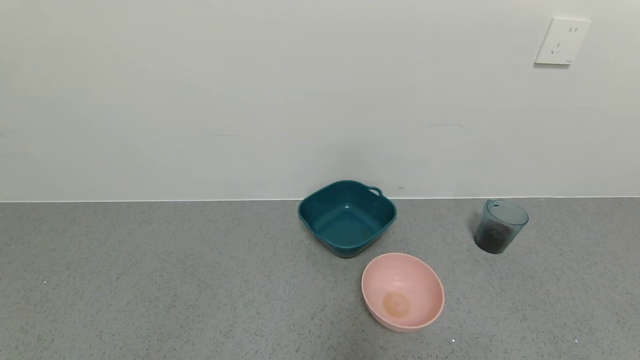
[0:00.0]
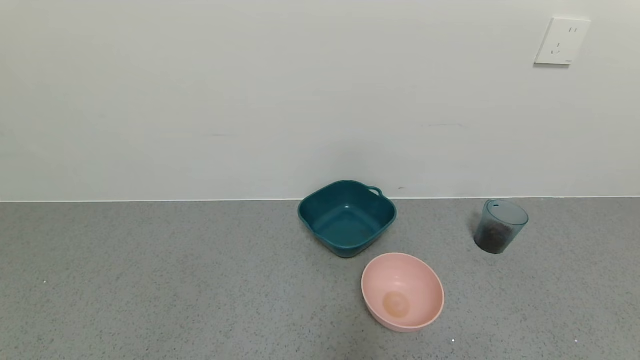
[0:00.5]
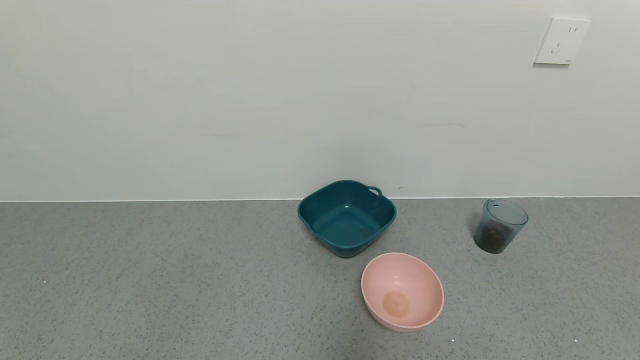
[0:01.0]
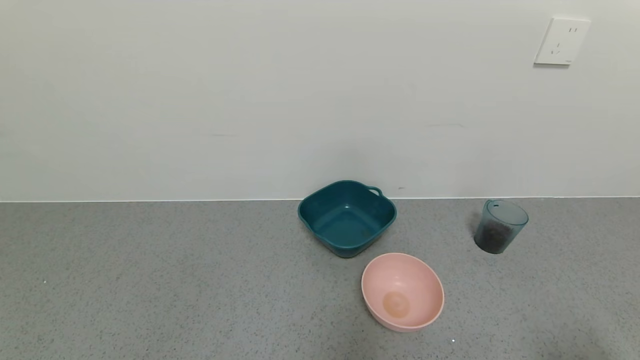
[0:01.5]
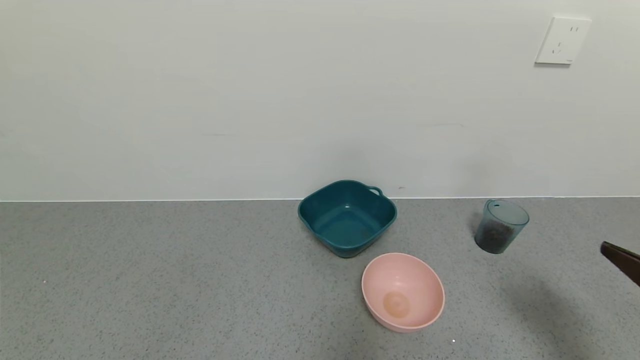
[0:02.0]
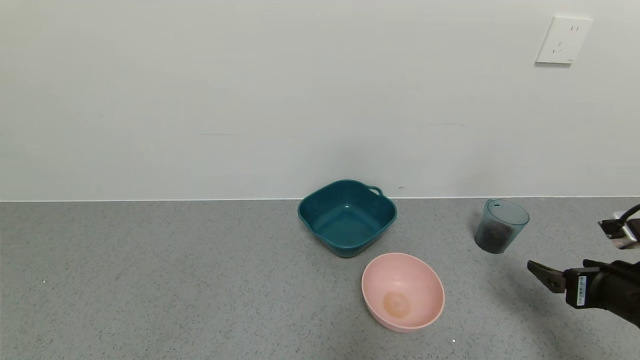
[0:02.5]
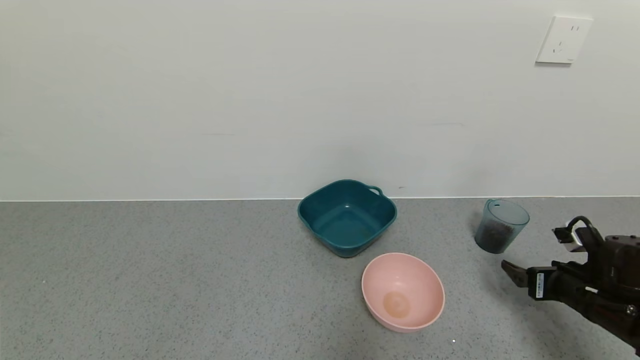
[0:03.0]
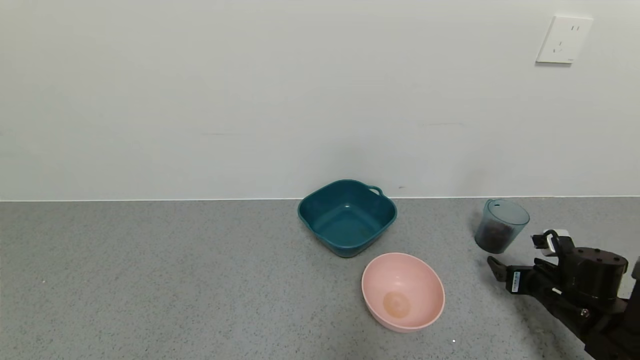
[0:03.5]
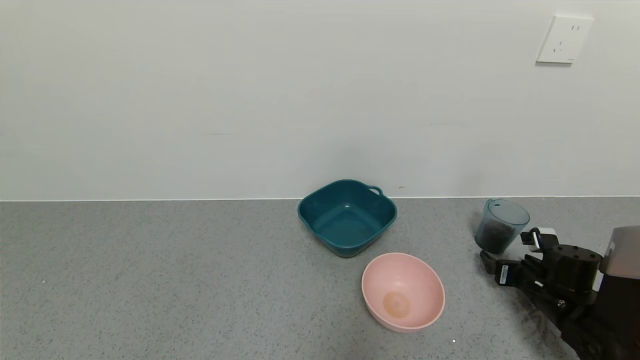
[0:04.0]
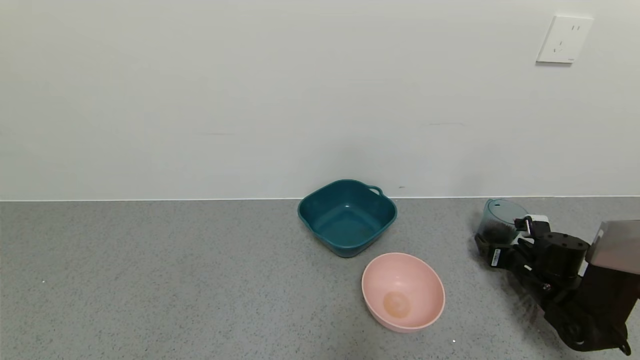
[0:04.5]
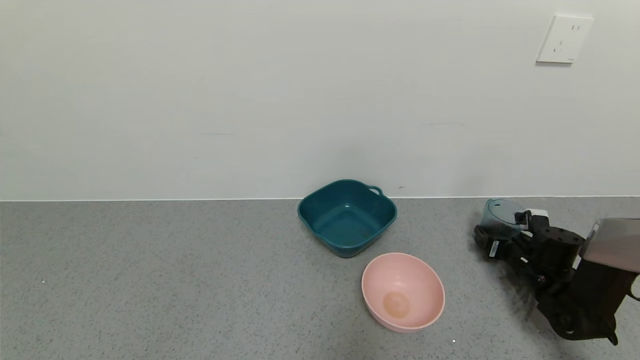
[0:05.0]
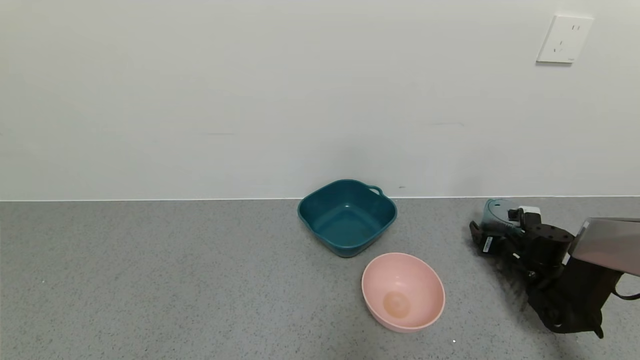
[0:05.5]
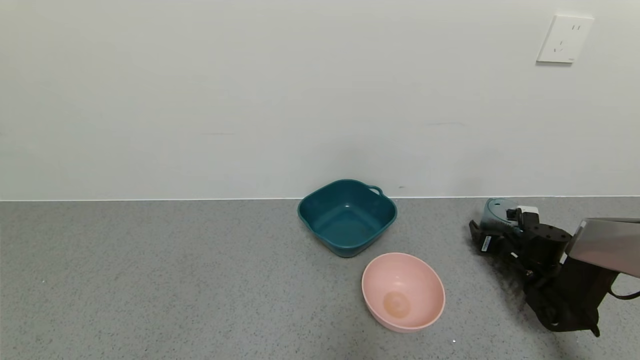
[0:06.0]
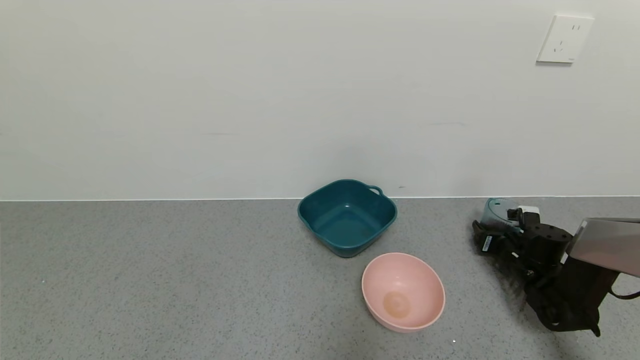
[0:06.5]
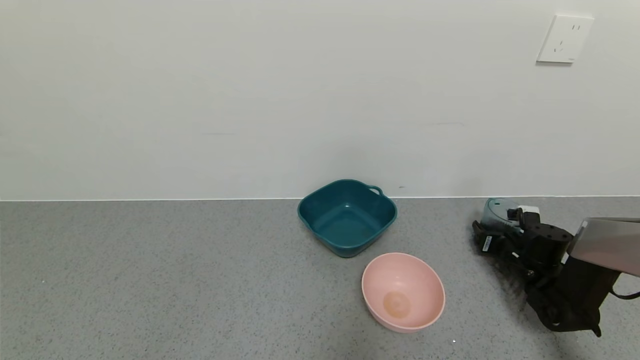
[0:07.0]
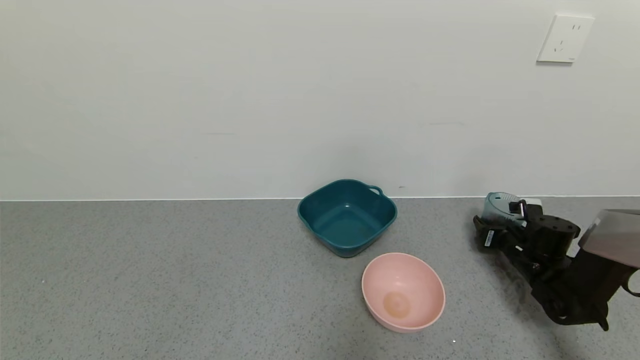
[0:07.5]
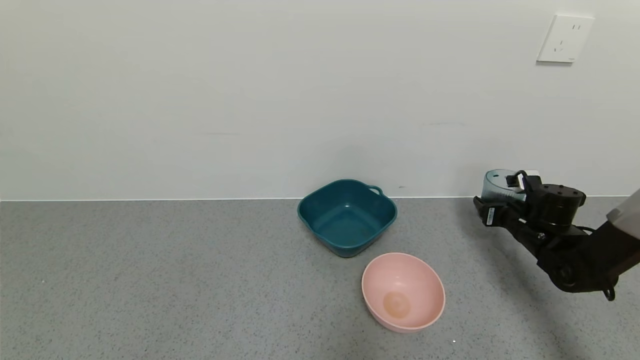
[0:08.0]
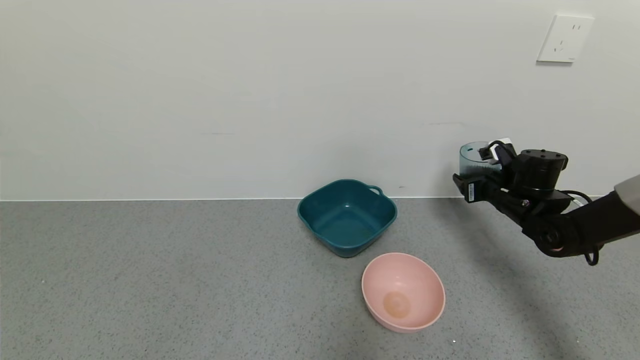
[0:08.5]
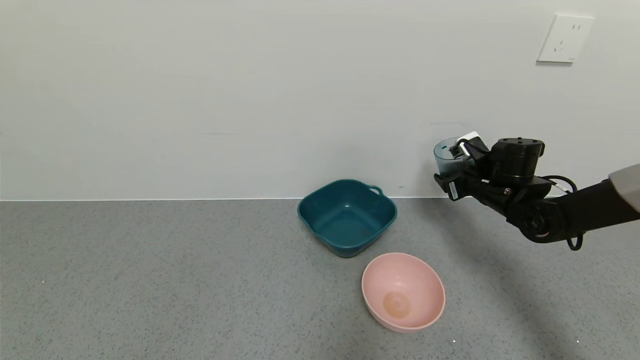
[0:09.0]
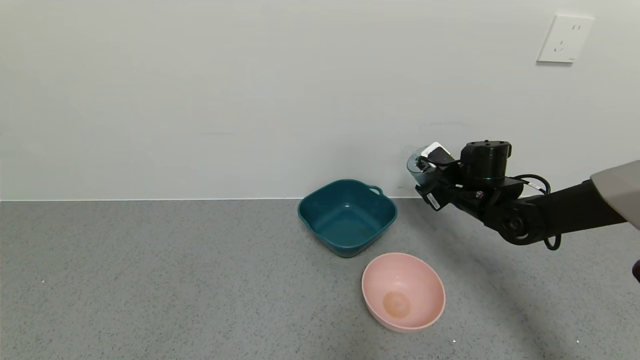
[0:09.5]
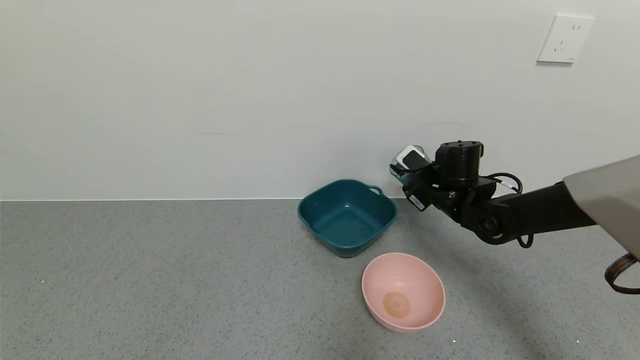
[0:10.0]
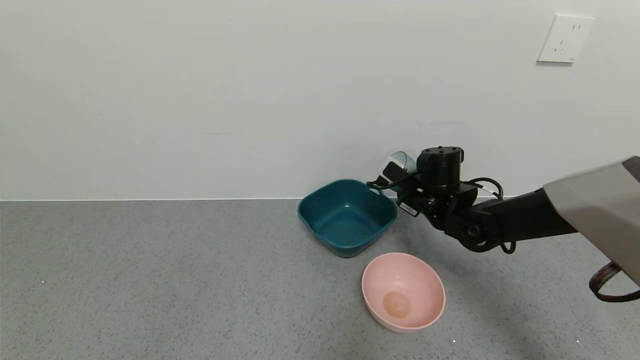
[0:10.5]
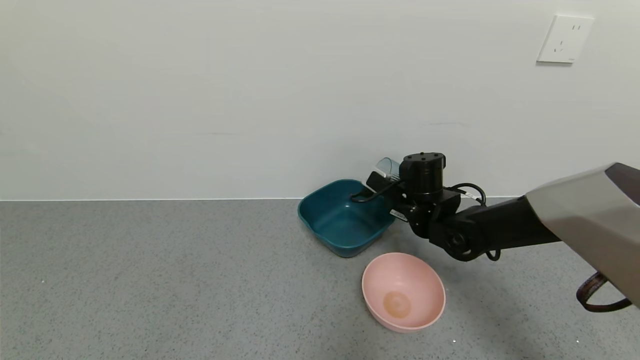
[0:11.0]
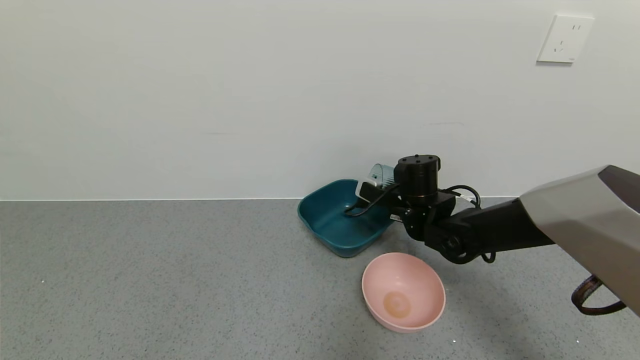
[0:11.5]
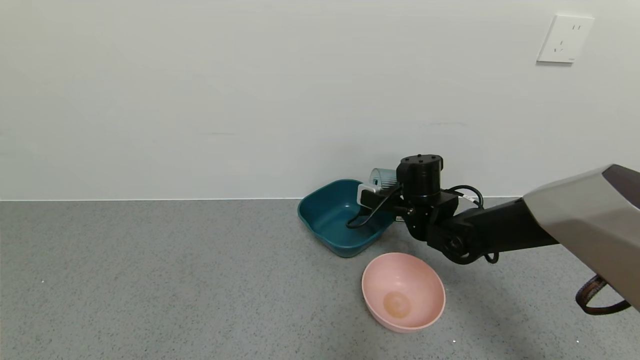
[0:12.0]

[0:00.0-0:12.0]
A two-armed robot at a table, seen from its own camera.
Task of the whole recording: use a gripper to pick up the cup and pour the solid into a bowl or tray.
Step, 0:00.0 to 0:06.5: Grasp the glass of coffee beans with the right gripper.
0:00.0 to 0:02.0: The right gripper moves forward and upward, approximately 20 cm.
0:02.0 to 0:04.0: The right gripper moves downward and forward, about 30 cm.
0:04.0 to 0:06.0: The right gripper heads forward, covering about 5 cm.
0:06.0 to 0:08.0: The right gripper is displaced upward by approximately 10 cm, and closes.
0:08.0 to 0:10.0: The right gripper moves to the left and upward, approximately 20 cm.
0:10.0 to 0:12.0: The right gripper shifts roughly 5 cm to the left.

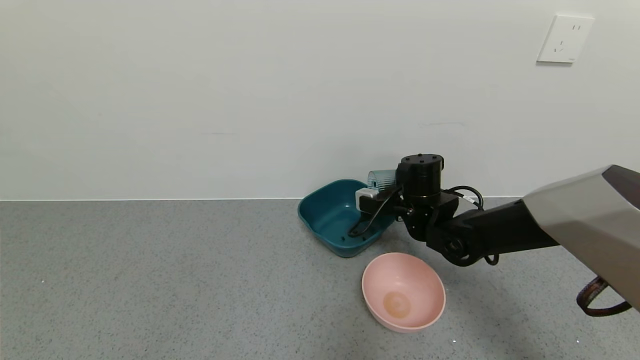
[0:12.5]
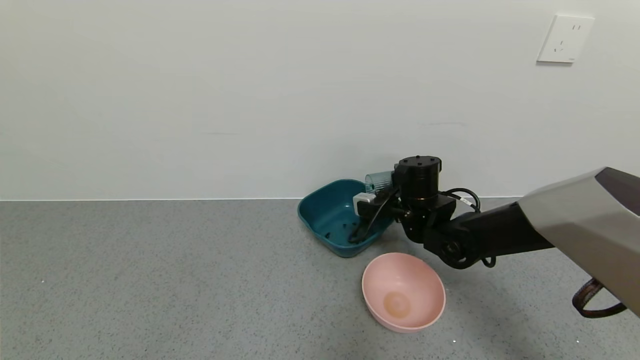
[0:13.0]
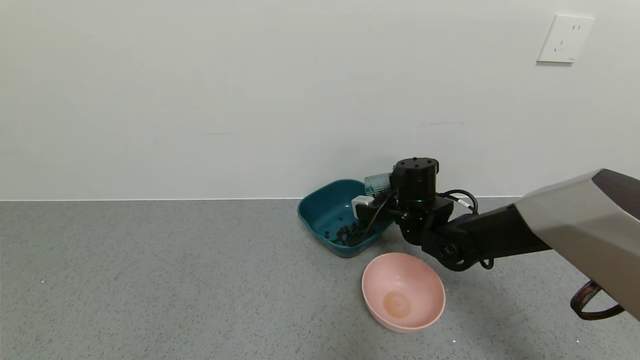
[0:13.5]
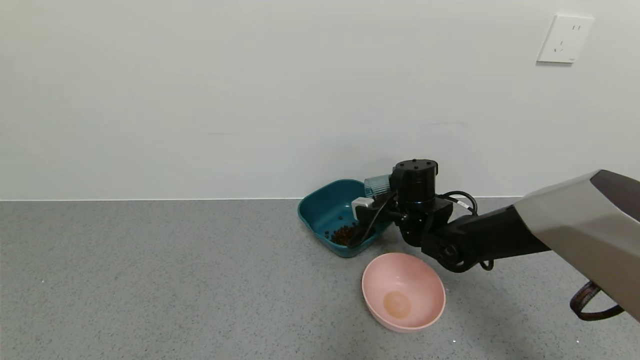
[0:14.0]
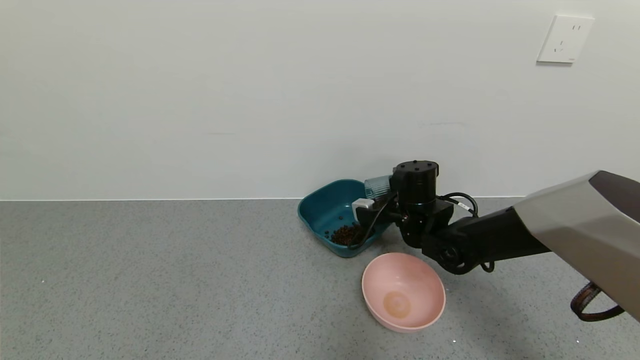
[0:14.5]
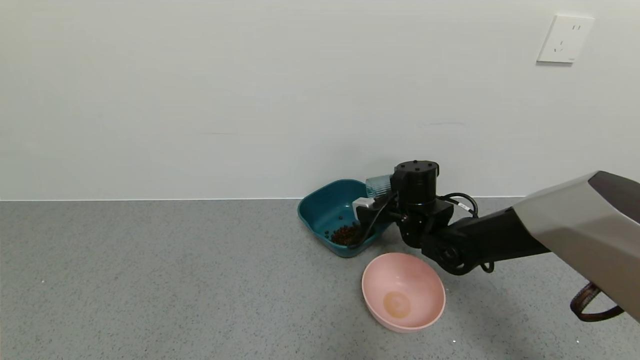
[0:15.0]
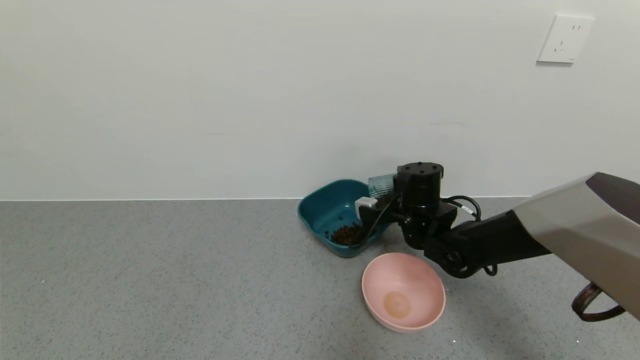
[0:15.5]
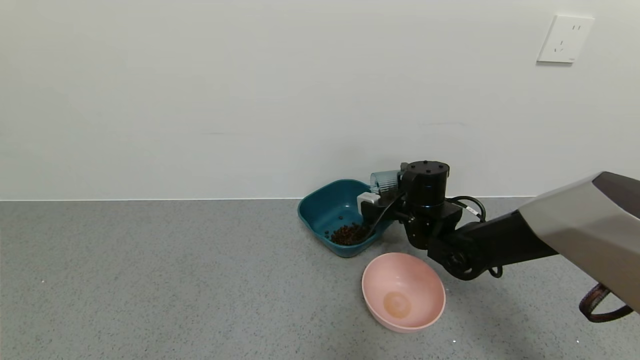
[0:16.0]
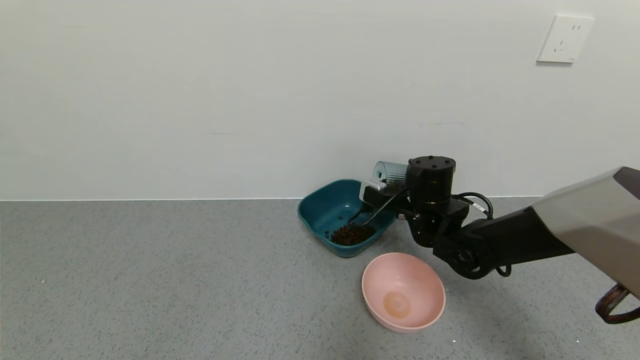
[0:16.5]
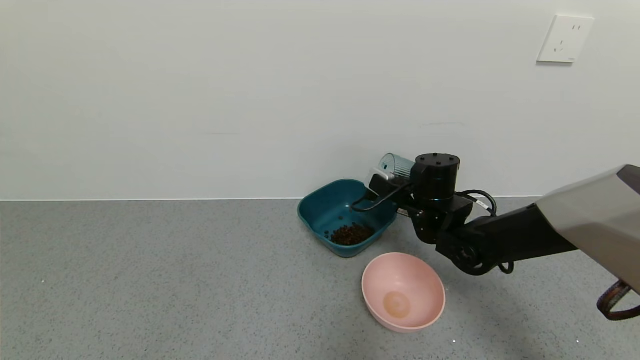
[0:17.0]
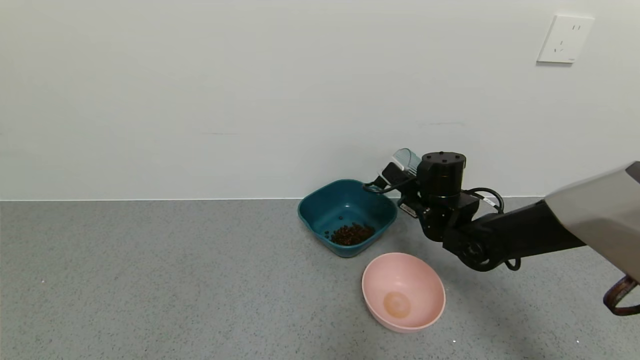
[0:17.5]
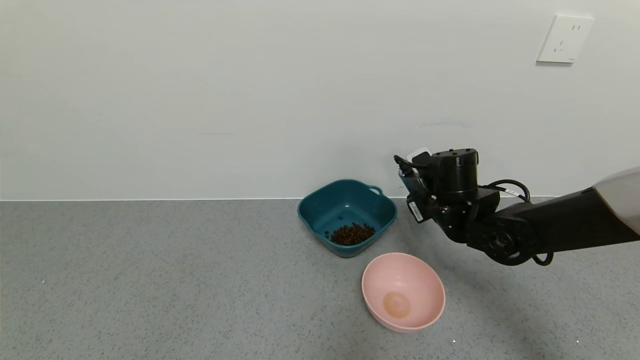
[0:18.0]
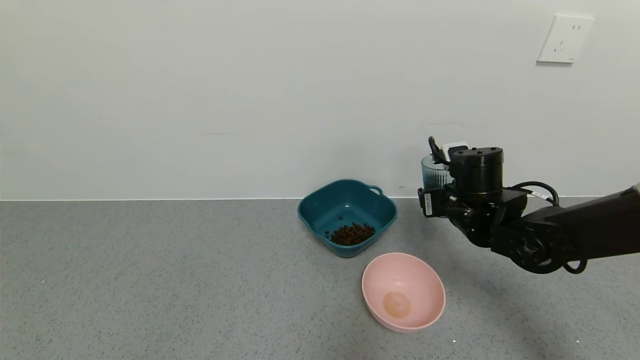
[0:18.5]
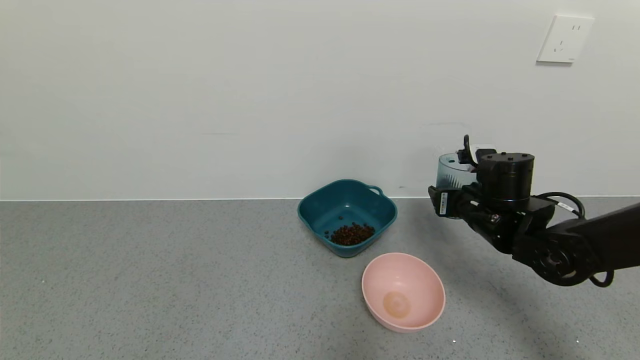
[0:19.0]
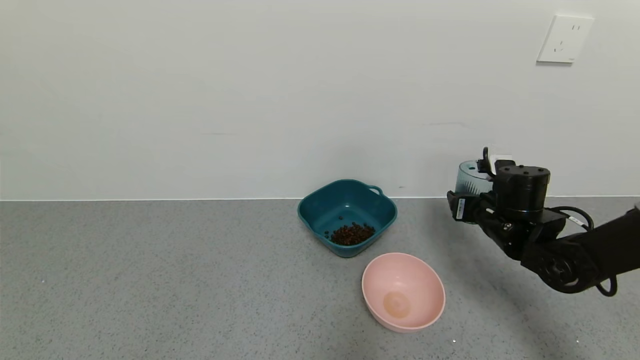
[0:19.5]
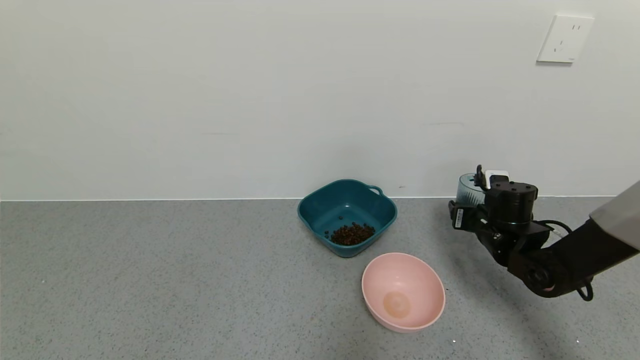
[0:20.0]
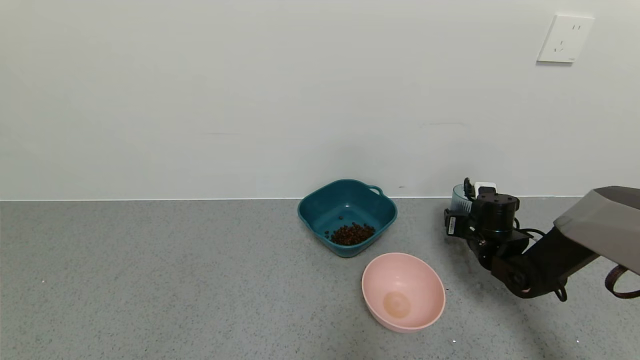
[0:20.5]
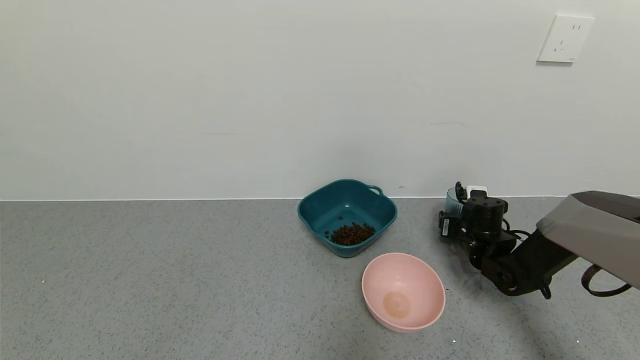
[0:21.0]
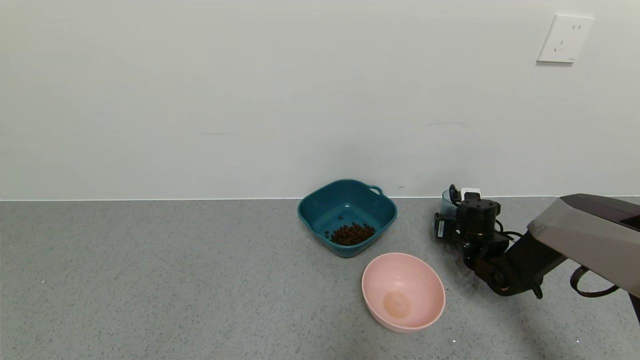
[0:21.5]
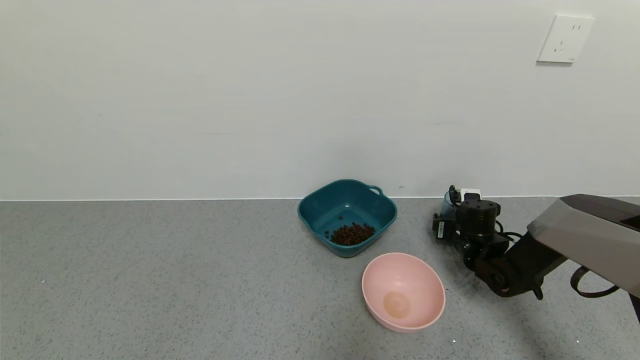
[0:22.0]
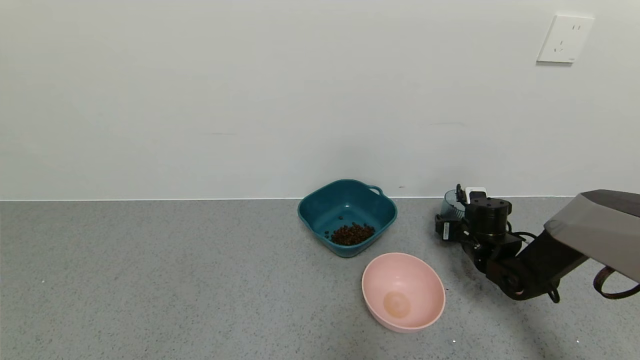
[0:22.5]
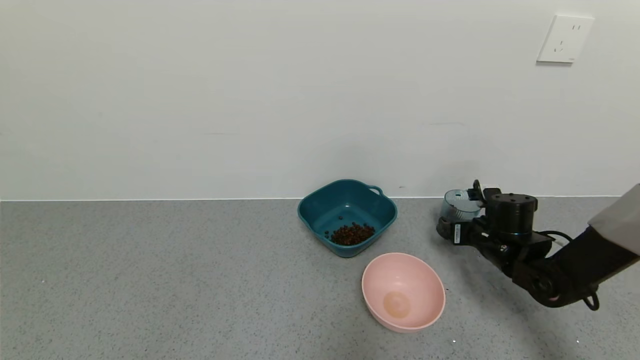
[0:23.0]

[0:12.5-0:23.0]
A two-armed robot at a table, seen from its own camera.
Task of the whole recording: use a gripper to pick up the cup and pour the solid into a bowl or tray.
Step, 0:12.5 to 0:18.0: Pour the coffee beans into the green bowl with the right gripper.
0:12.5 to 0:14.5: There are only small adjustments of the grippers.
0:16.5 to 0:19.0: The right gripper is displaced to the right by about 10 cm.
0:19.0 to 0:21.0: The right gripper moves downward and forward, about 15 cm.
0:21.0 to 0:23.0: The right gripper shifts approximately 5 cm backward, and opens its fingers.
